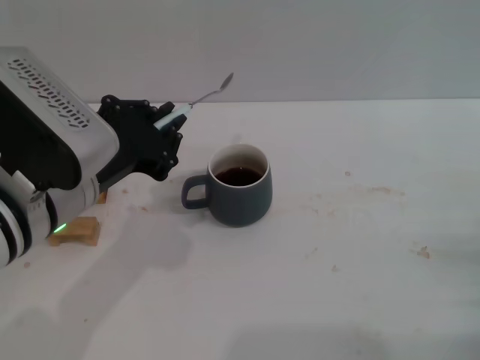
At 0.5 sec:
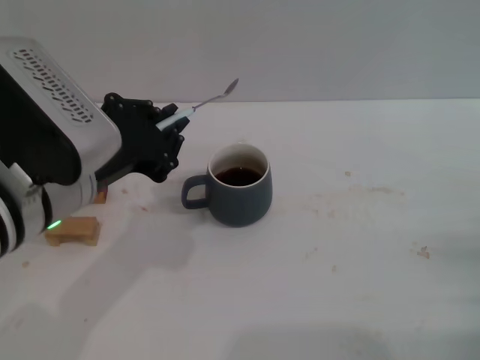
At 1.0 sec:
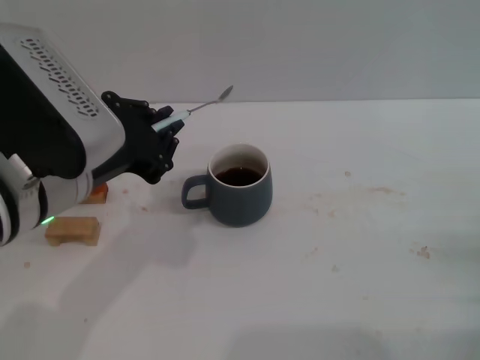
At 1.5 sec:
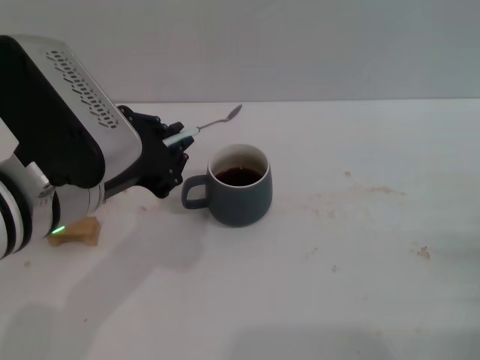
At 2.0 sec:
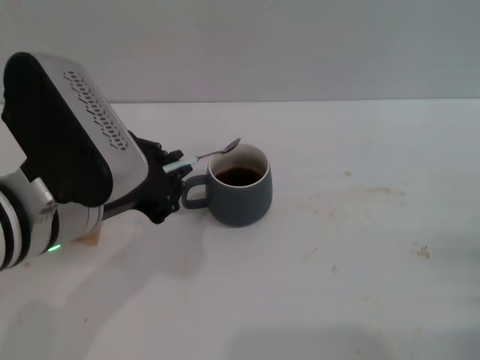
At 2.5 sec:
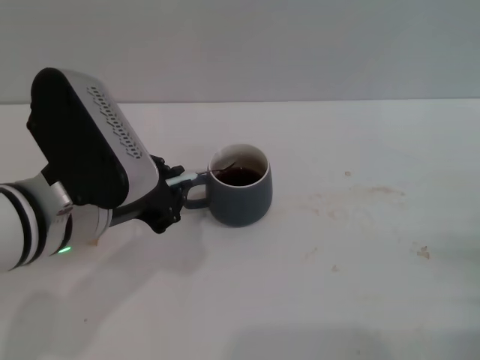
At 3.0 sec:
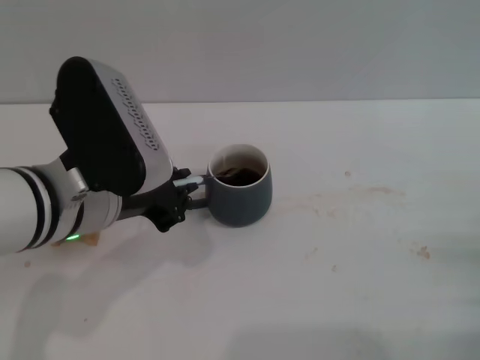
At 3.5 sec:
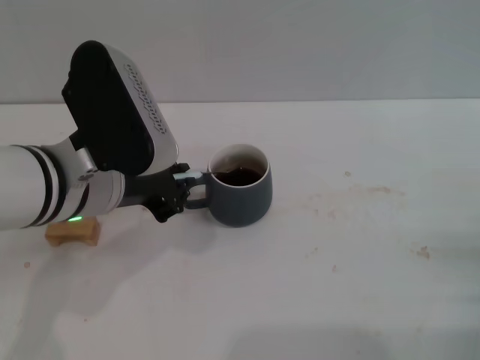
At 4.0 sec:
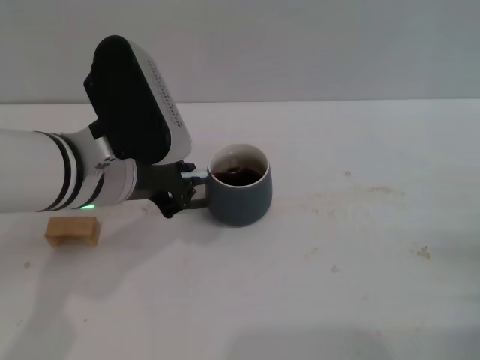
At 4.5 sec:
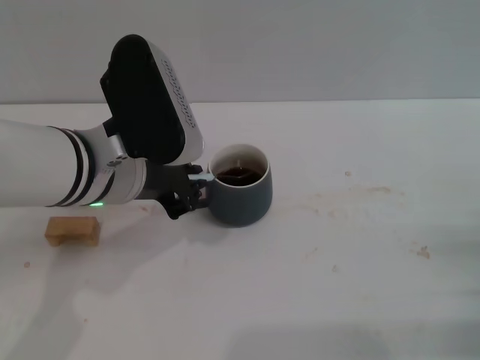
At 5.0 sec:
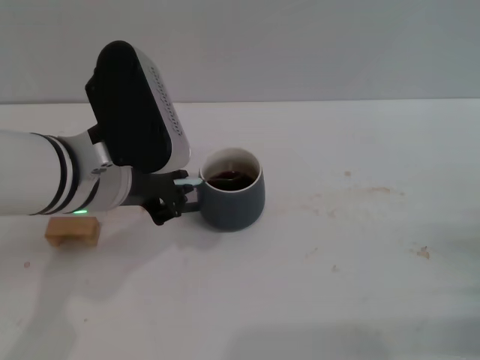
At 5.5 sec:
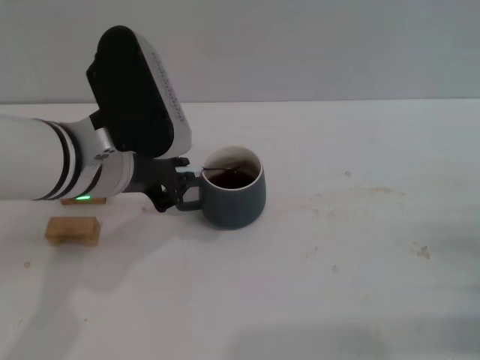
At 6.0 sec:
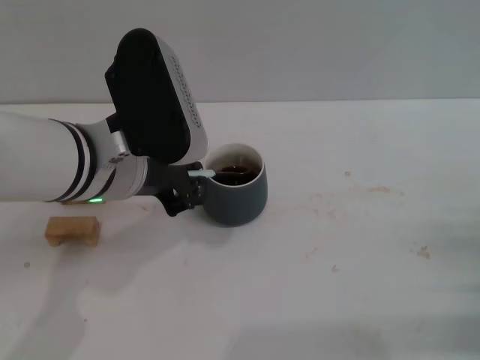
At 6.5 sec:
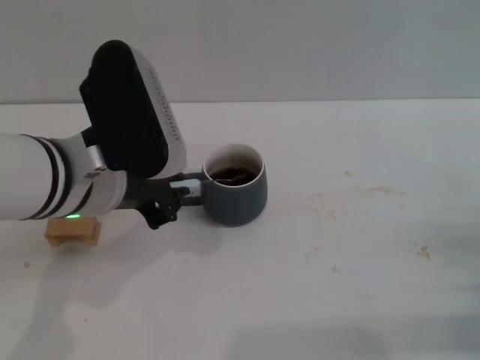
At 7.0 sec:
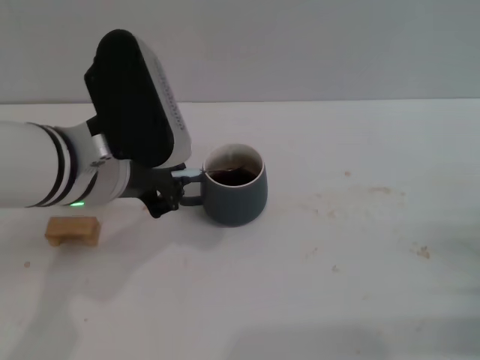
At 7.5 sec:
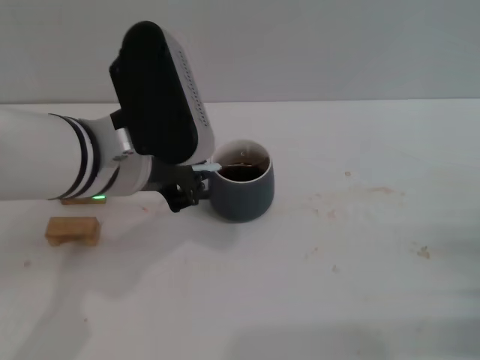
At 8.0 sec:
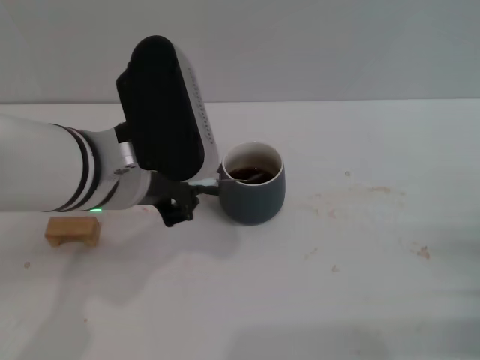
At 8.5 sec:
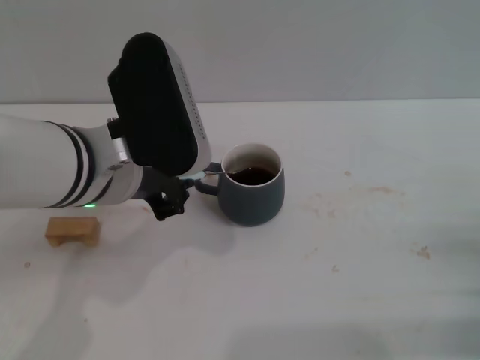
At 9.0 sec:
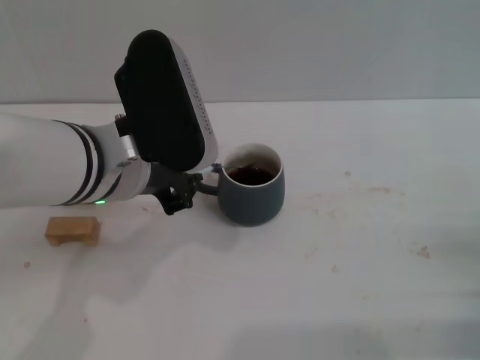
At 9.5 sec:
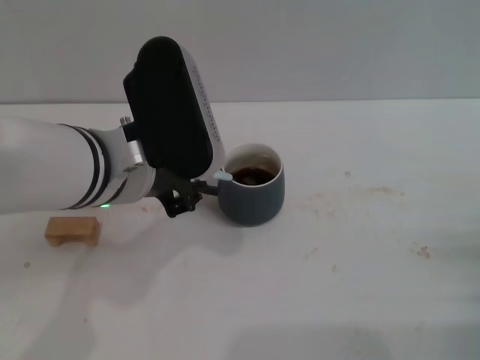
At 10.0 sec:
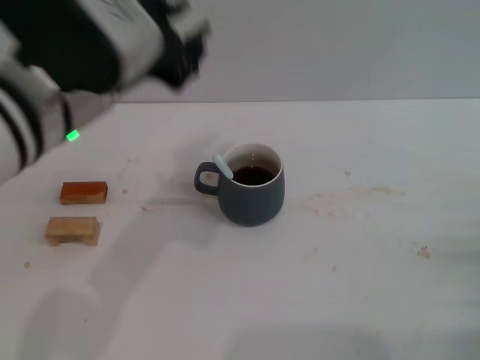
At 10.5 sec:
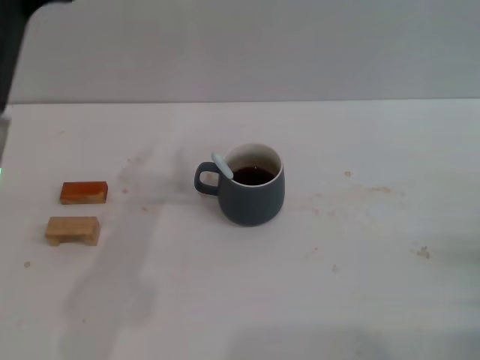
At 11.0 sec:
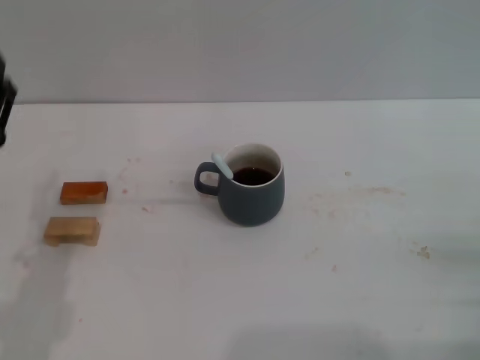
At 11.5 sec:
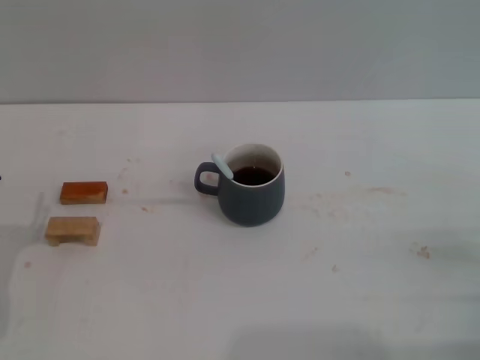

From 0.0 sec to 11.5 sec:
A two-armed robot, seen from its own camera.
Task of the whole recording: Move the grey cup to the center, lift the blue spoon, stir it three times in the cup, and put the spoon into the cup.
Step, from 0.0 sec to 9.5 sec: Stir the coffee in the cup with the left gripper.
From 0.0 sec to 2.0 sec: The grippers stay close to where they were, moving slightly.
From 2.0 sec to 4.0 sec: The left gripper heads forward, covering some 5 cm.
From 4.0 sec to 7.5 sec: The grippers make only small movements.
From 7.5 sec to 9.5 sec: Both grippers stay about where they are.
From 9.5 sec to 11.5 sec: The left gripper shifts roughly 25 cm to the left, downward and backward, and opens.
